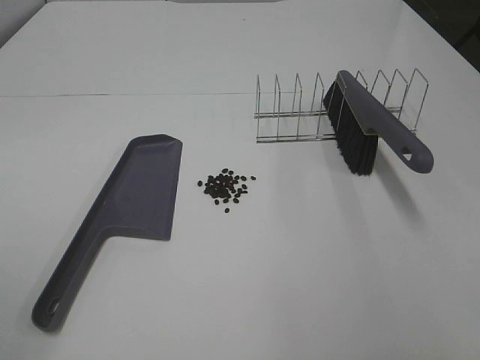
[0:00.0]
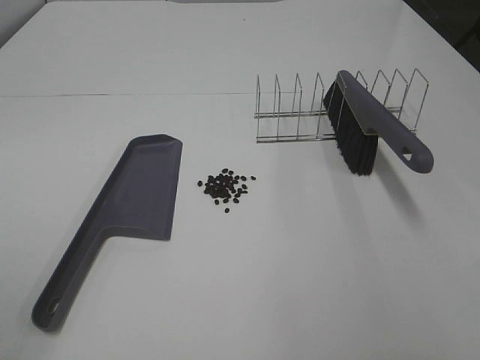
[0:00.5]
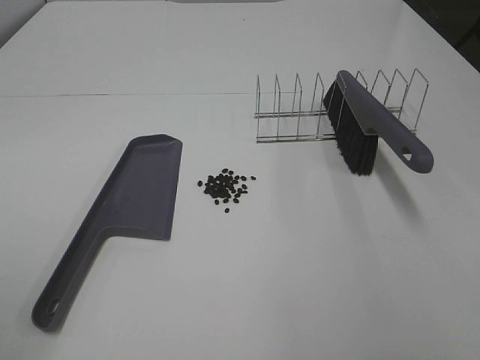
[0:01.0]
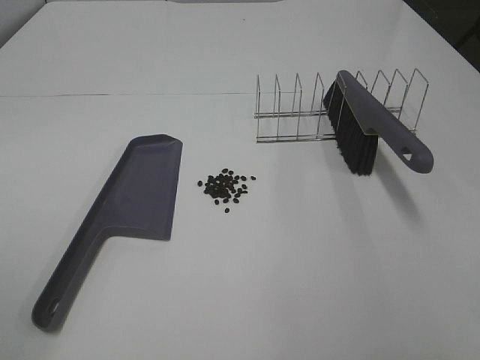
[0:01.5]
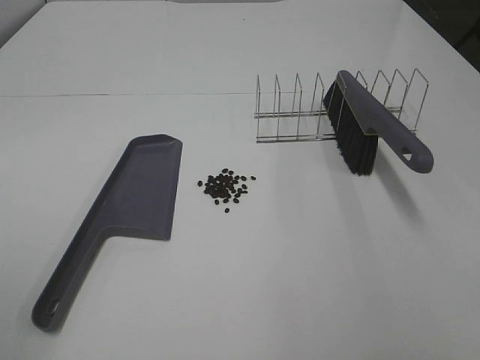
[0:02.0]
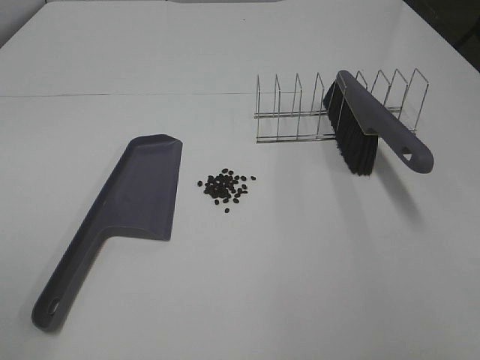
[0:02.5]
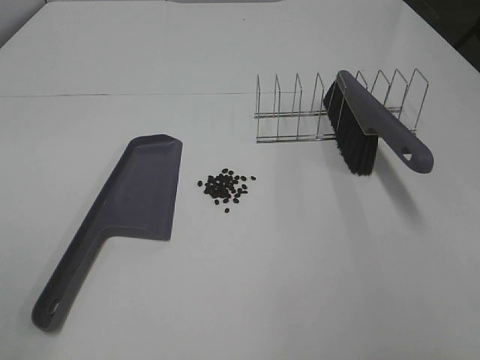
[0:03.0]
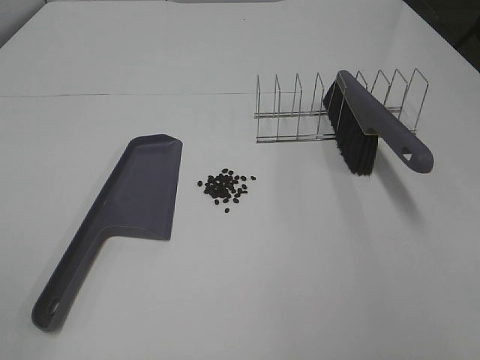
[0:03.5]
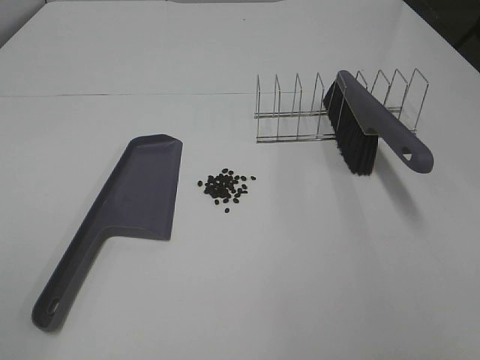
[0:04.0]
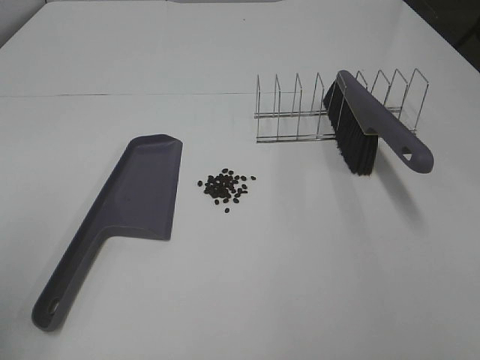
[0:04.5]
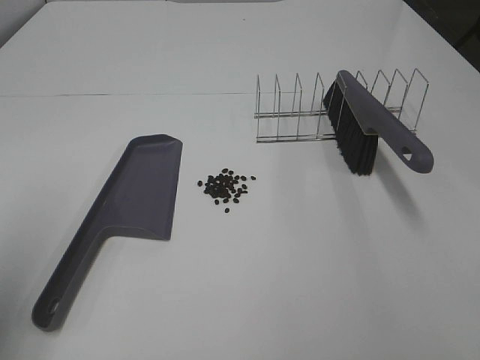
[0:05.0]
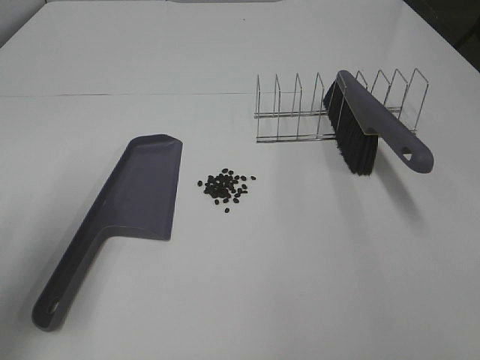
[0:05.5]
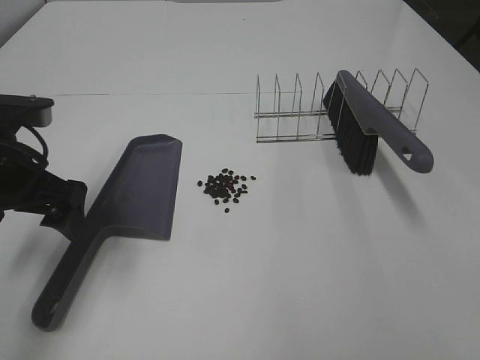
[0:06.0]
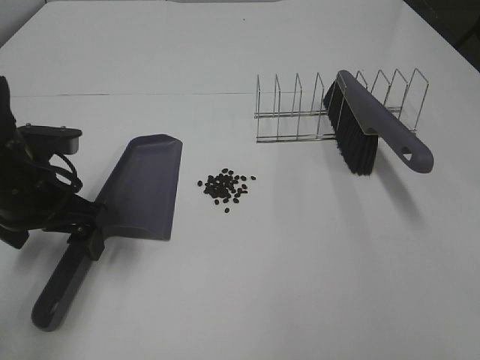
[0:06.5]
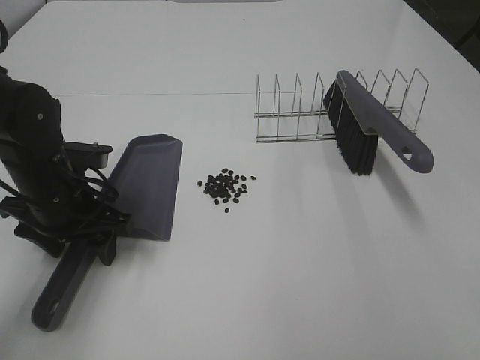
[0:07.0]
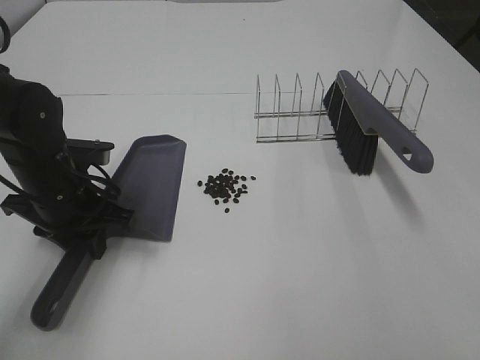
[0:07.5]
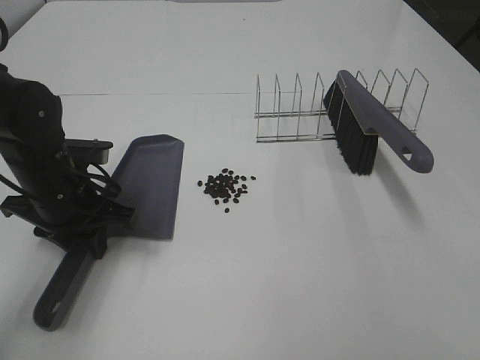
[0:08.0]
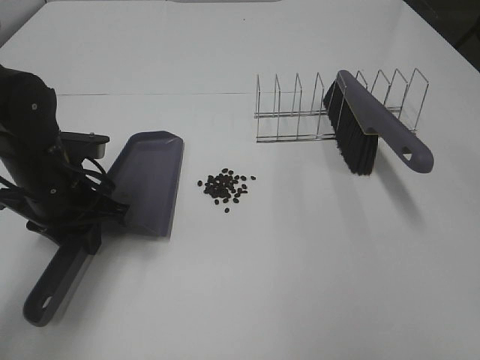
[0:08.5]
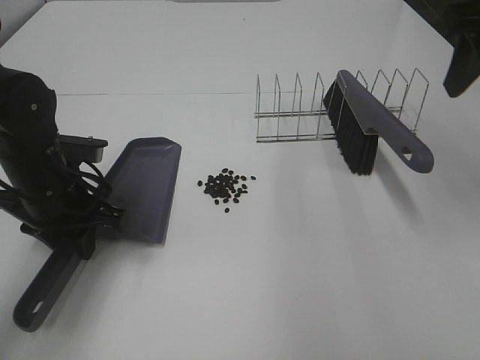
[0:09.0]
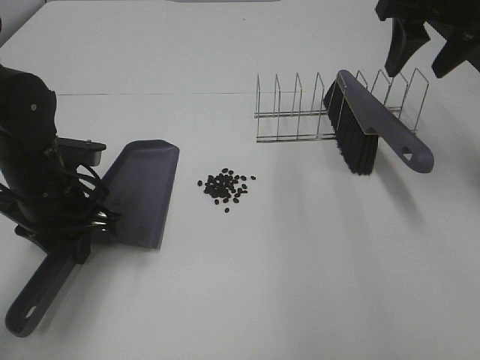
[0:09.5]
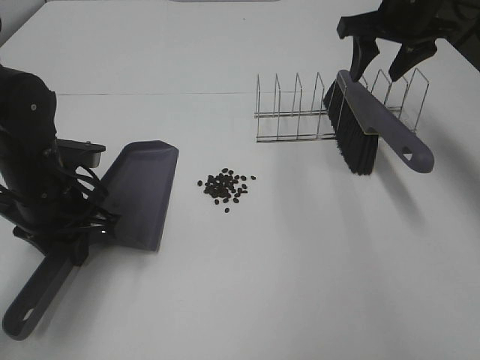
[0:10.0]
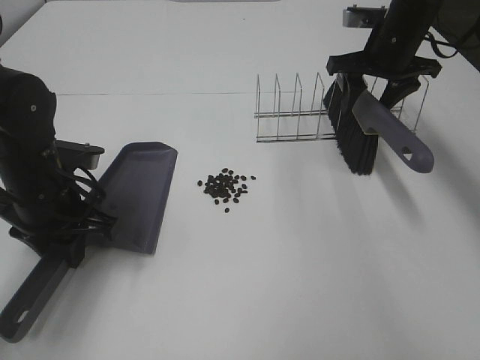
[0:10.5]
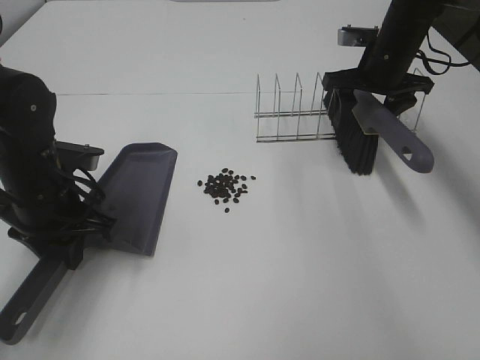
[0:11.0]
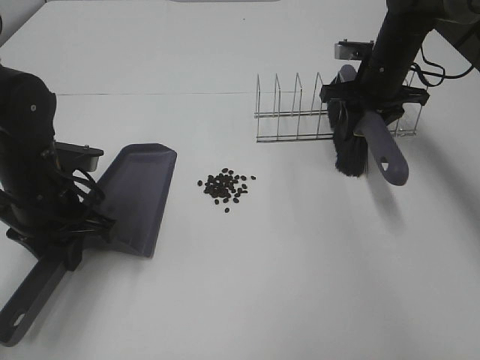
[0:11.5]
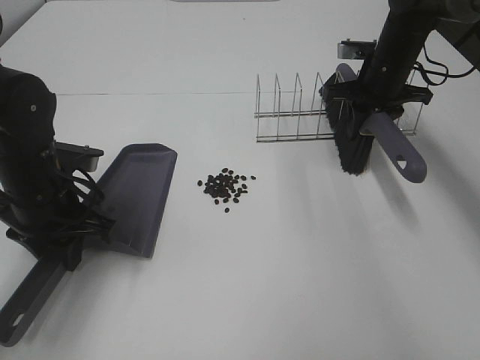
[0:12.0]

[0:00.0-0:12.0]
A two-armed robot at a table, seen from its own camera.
Task of the whole recording: Sweep Coffee Bean.
Step, 0:00.0 to 0:07.5: Left hand: grab the dustpan.
Step, 0:08.0 to 0:11.5: Right hand:grab the broom.
0:00.0 to 0:04.0: Both grippers stay about where they are.
0:04.0 to 0:06.0: The left gripper heads forward and downward, covering about 30 cm.
0:06.0 to 0:08.0: The left gripper moves downward, roughly 10 cm, and closes its fingers.
0:08.0 to 0:10.0: The right gripper shifts approximately 50 cm forward.
0:10.0 to 0:12.0: The right gripper goes about 10 cm downward, and closes its fingers.

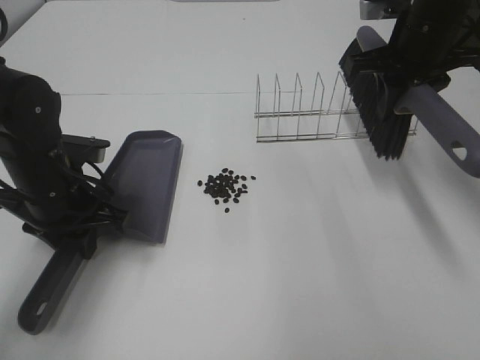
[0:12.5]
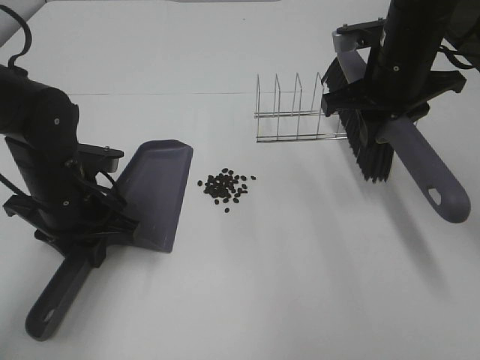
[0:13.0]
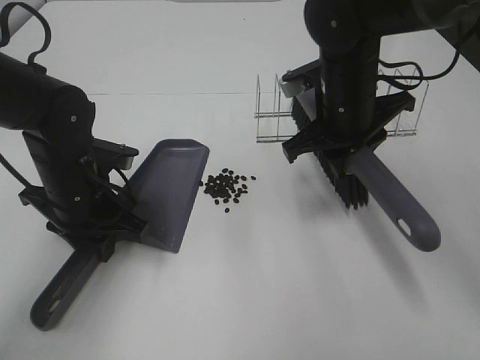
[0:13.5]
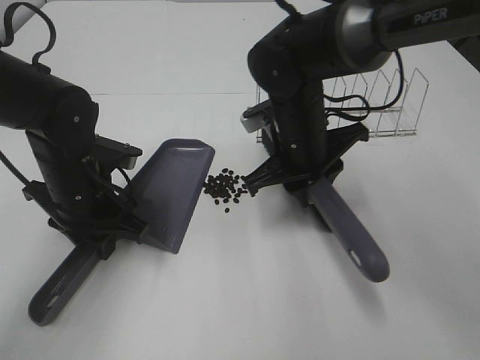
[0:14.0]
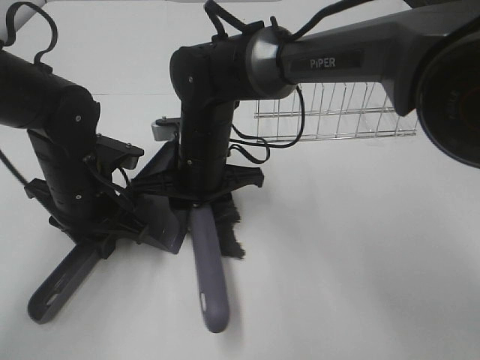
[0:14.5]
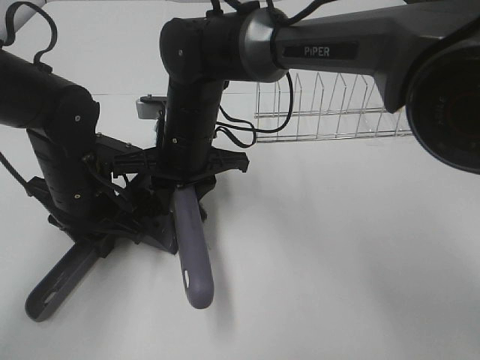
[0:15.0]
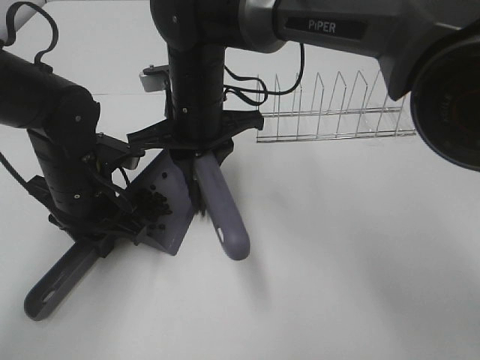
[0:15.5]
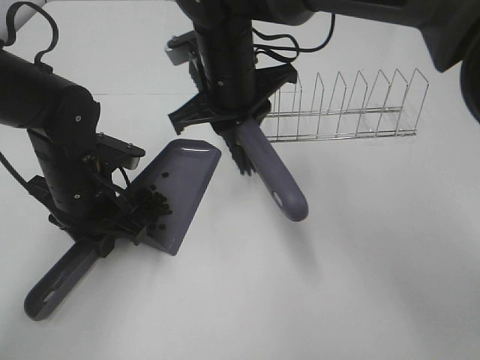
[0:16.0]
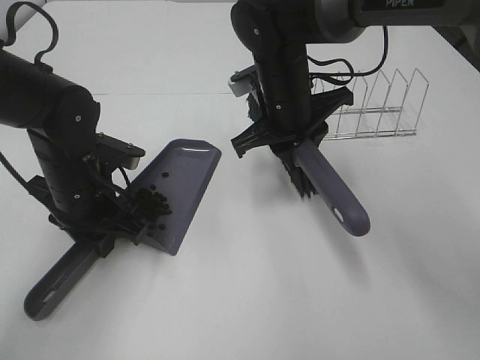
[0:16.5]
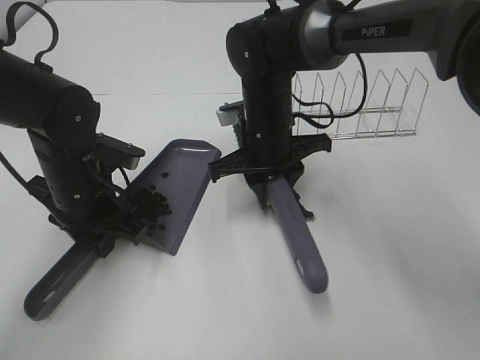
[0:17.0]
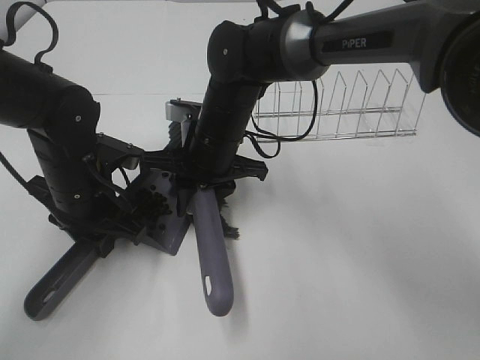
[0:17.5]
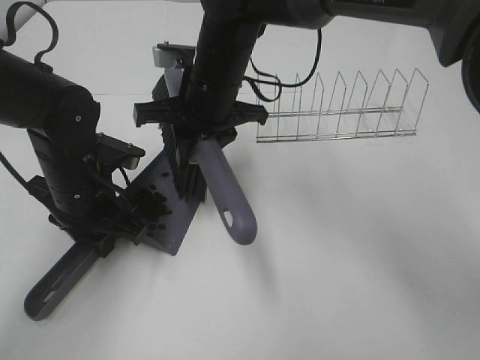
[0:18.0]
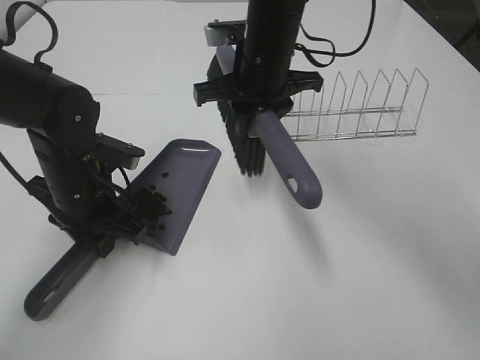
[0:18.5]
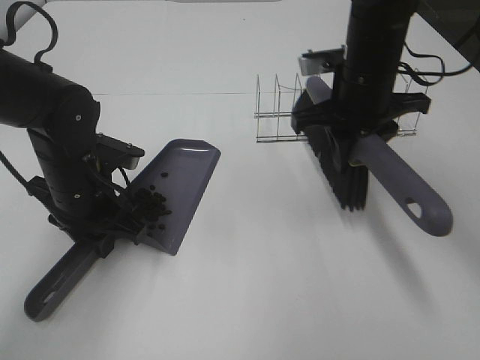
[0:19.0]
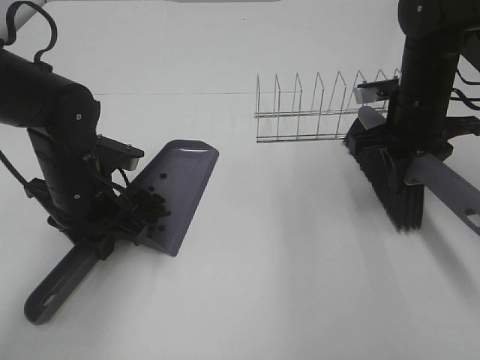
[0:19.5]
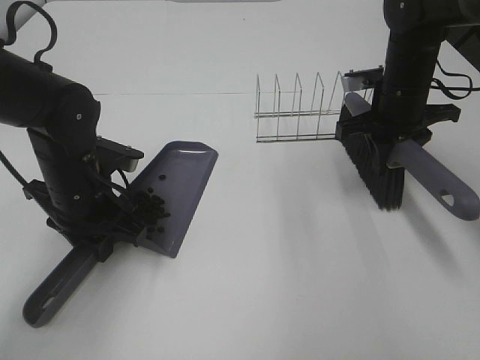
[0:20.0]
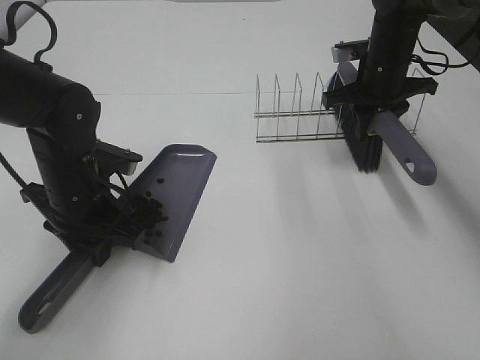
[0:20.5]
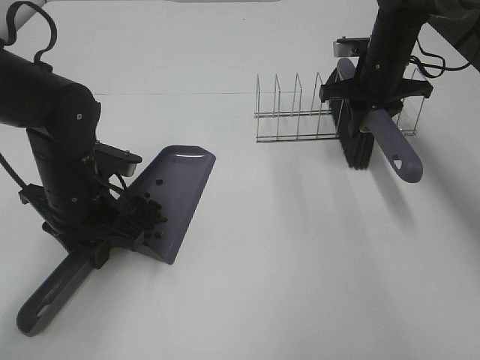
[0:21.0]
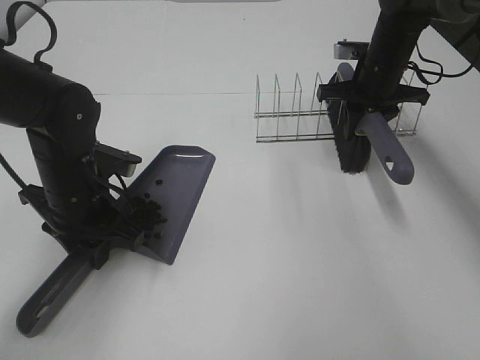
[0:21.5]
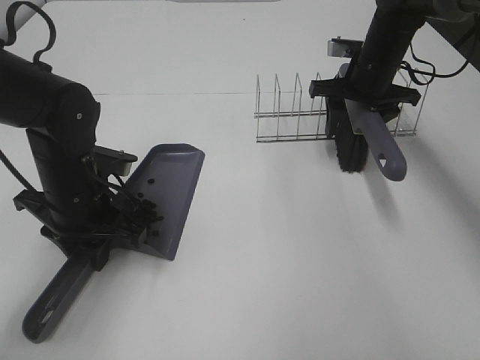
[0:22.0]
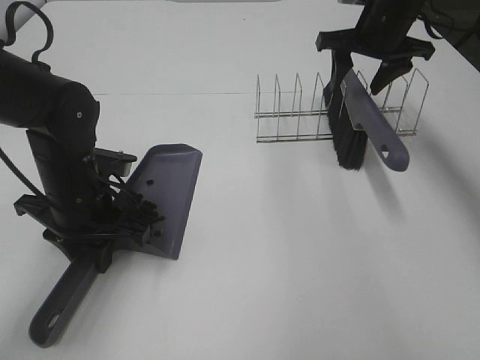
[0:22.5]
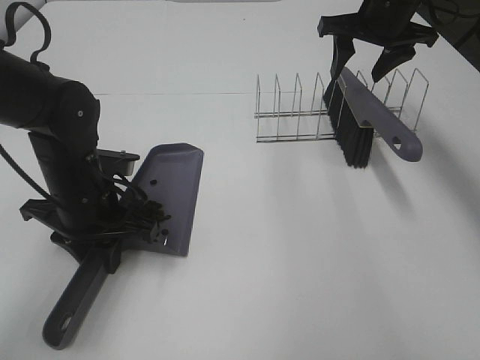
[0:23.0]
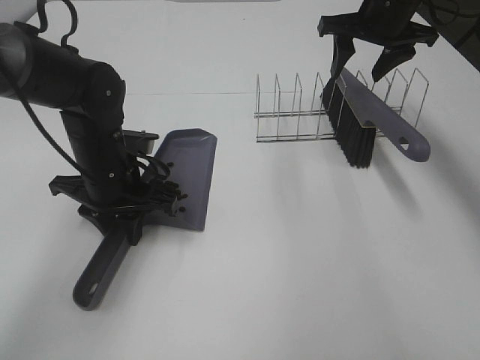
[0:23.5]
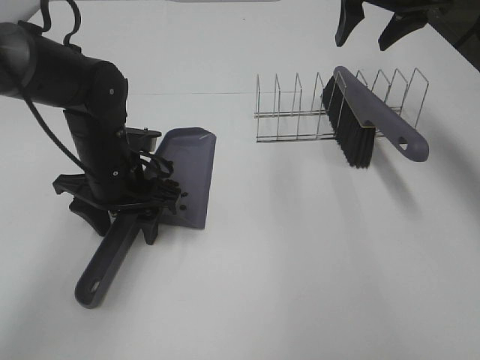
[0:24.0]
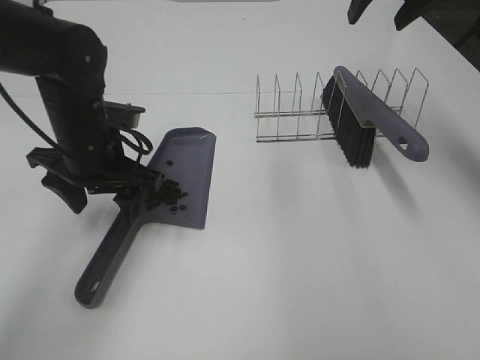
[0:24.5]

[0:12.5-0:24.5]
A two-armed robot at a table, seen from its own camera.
Task of the whole recording: Sweep Coffee Bean.
Step, 0:12.5 to 0:18.0: Right hand:sweep the coffee beans into the dustpan.
Step, 0:18.5 to 0:22.0: Right hand:place the broom on the rack.
Step, 0:22.5 to 0:24.0: Left hand:place the dustpan on the table.
0:12.5 to 0:14.5: The right gripper moves to the left and downward, approximately 30 cm.
0:14.5 to 0:16.5: The right gripper goes roughly 10 cm to the right.
0:18.5 to 0:20.5: The right gripper goes about 15 cm to the right.
0:20.5 to 0:22.5: The right gripper shifts roughly 5 cm upward, and opens up.
0:22.5 to 0:24.5: The left gripper shifts about 5 cm upward, and opens. Meanwhile the right gripper moves upward, roughly 10 cm.

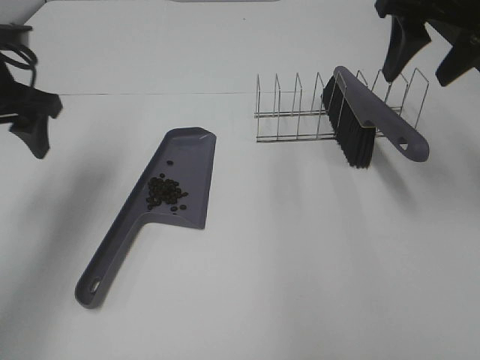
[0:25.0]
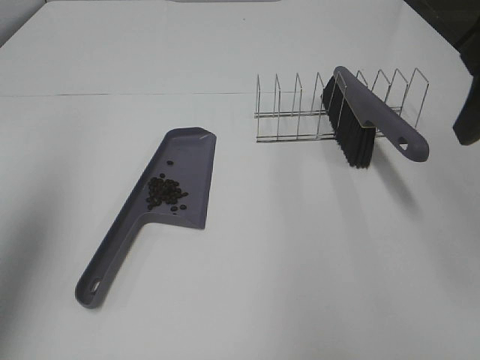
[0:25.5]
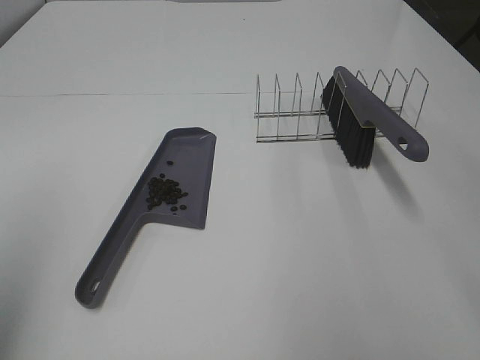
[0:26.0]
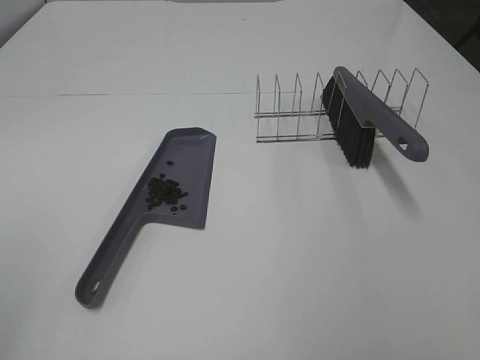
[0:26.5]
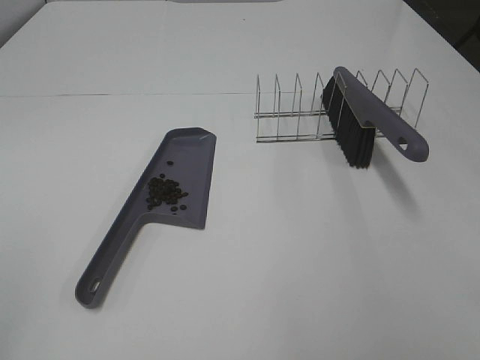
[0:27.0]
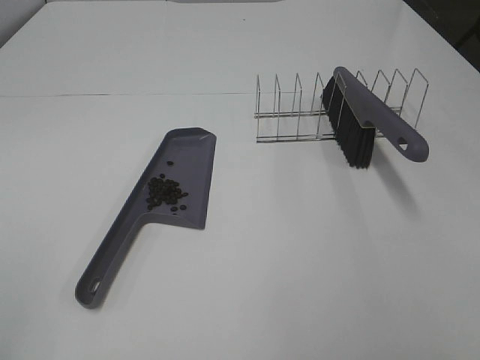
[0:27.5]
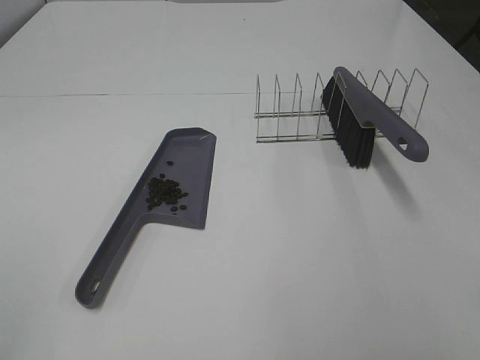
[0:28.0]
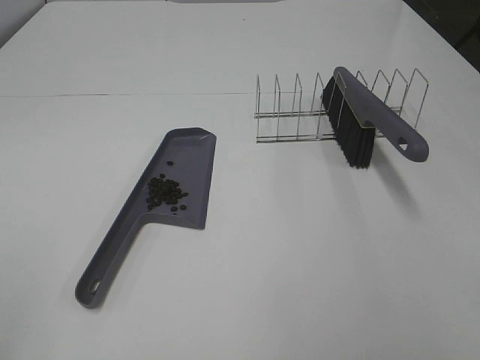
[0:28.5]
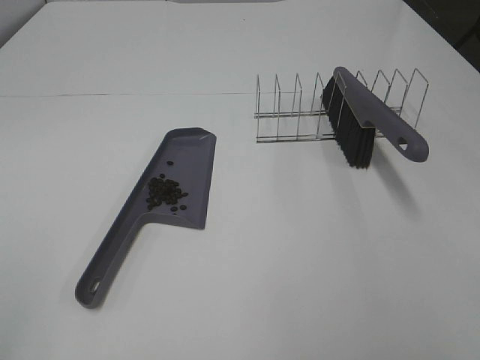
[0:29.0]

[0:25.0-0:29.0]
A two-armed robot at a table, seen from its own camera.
Task of the whole recording: Sweep Coffee Bean.
0:25.0 to 0:27.0: The grippers both shift backward by roughly 35 cm.
